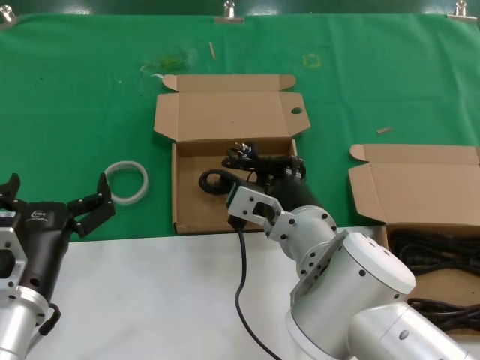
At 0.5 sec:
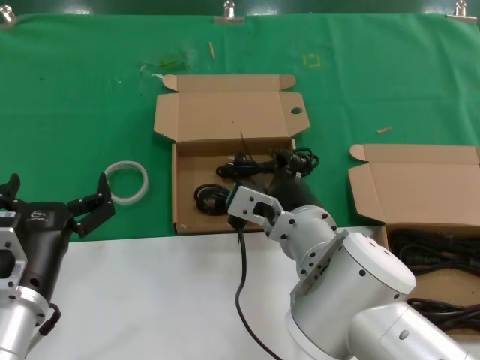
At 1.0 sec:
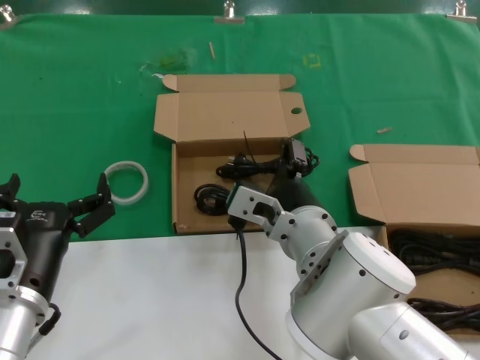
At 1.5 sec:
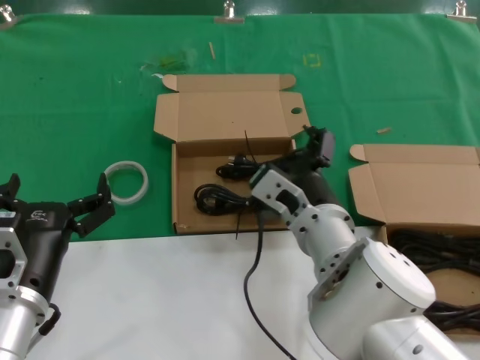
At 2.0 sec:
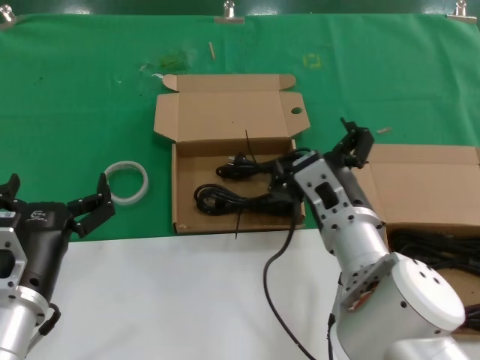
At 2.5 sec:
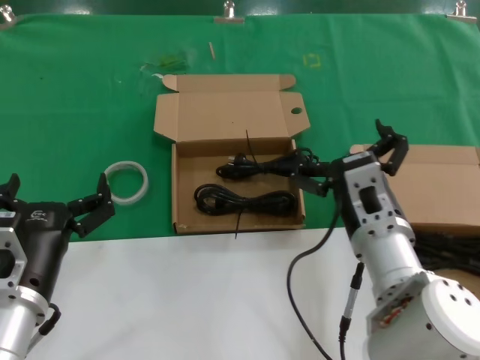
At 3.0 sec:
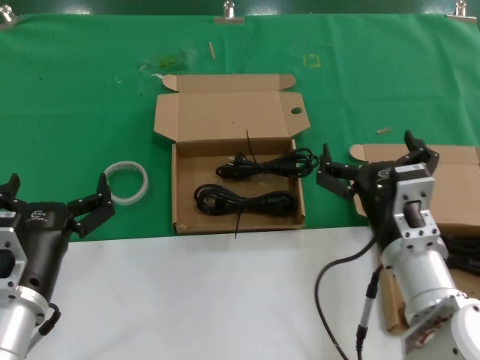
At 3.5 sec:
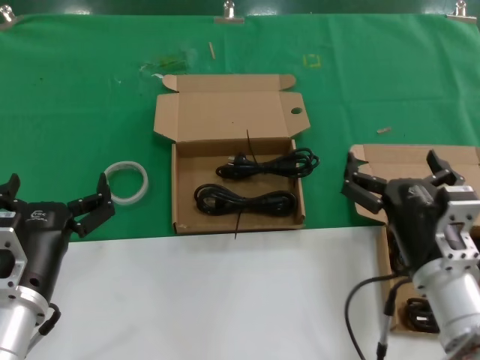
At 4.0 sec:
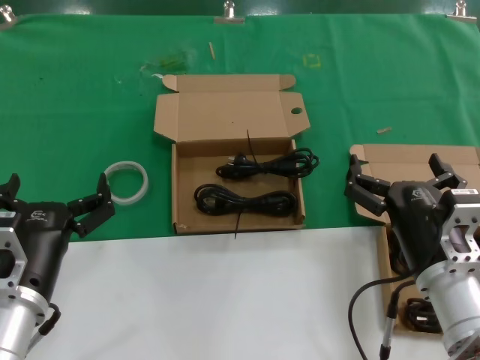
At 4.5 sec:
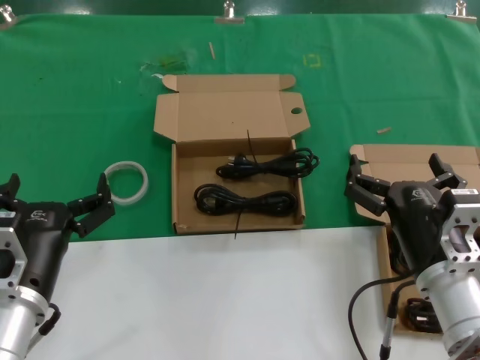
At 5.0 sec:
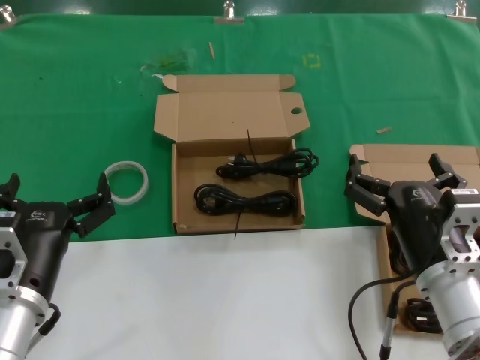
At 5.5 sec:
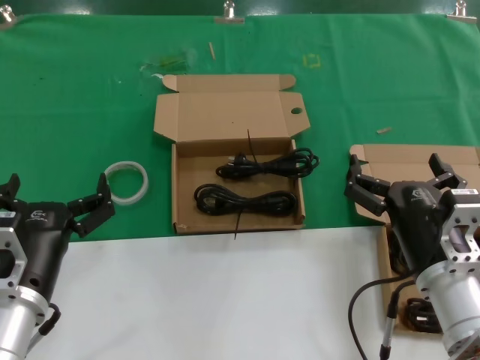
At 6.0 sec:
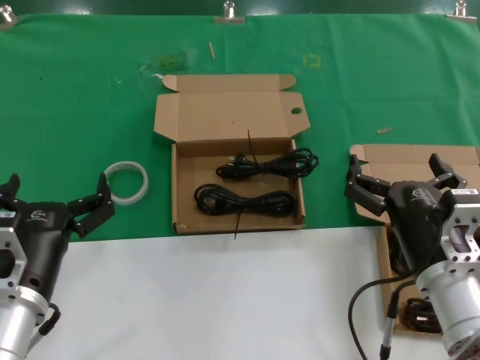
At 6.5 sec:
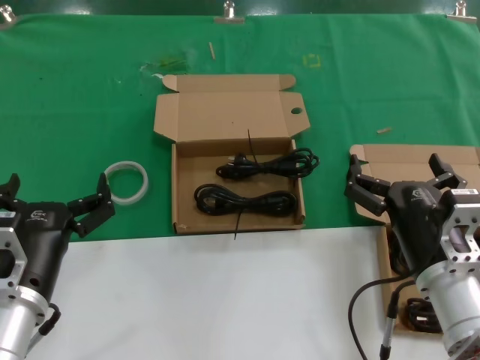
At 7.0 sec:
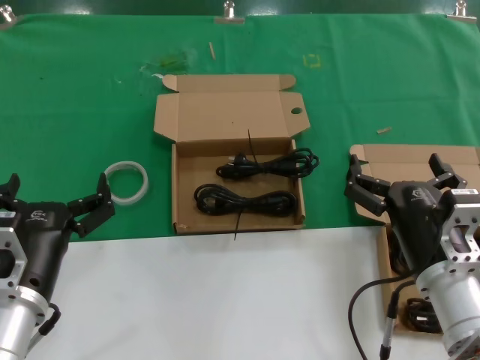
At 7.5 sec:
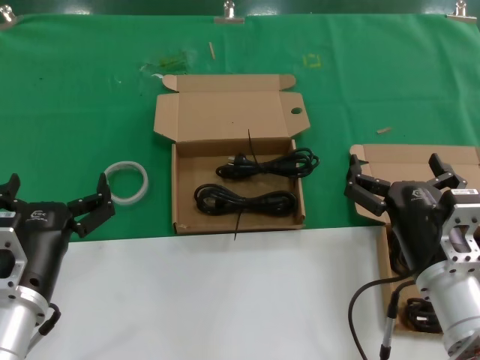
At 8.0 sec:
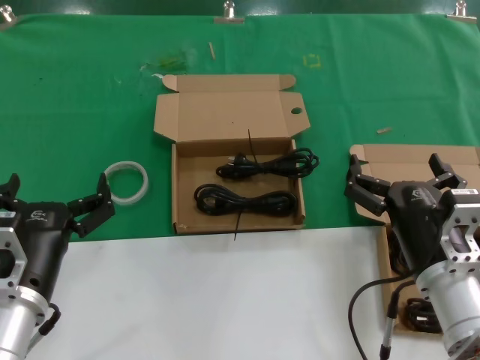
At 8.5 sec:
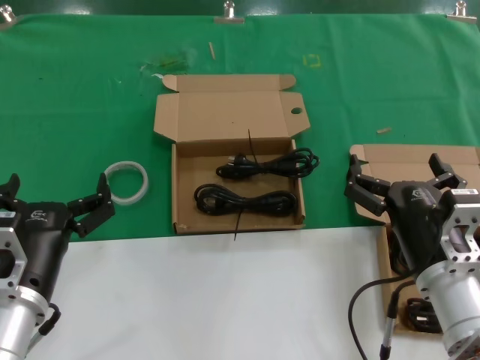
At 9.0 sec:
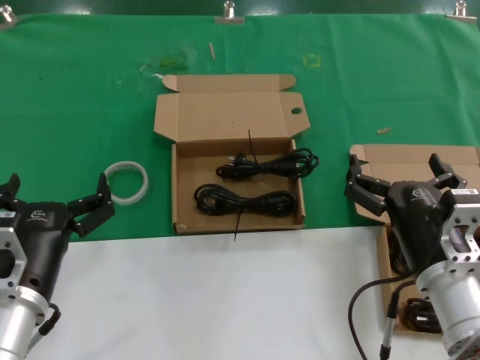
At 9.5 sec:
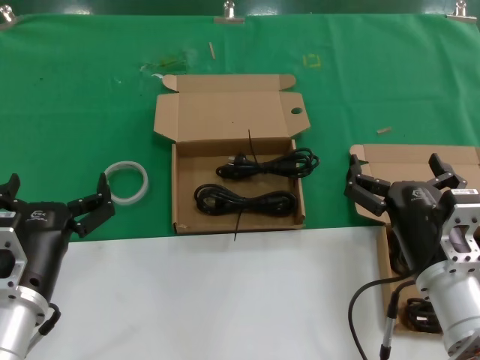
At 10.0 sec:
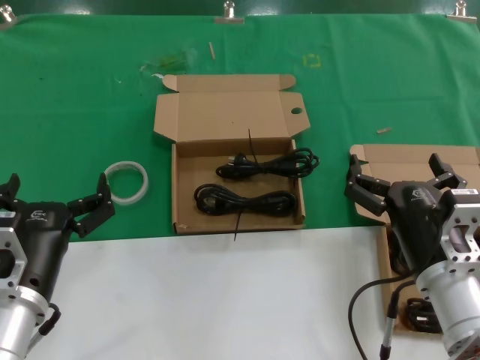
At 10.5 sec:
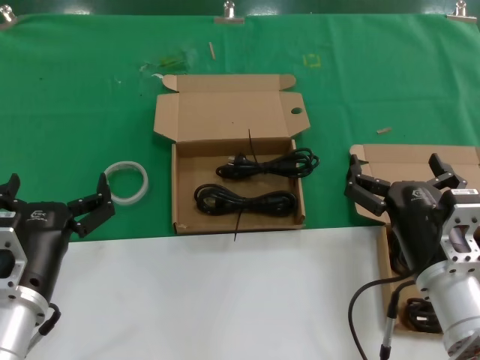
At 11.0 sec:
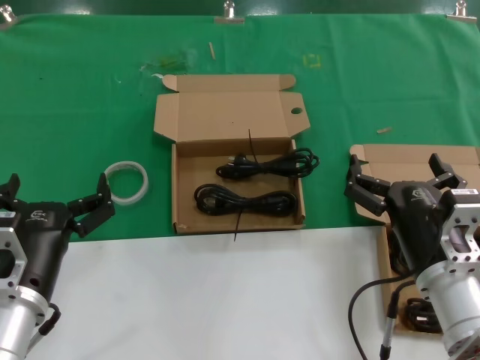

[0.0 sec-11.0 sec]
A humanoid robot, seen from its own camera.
Task of the whole recording: take the parts from the box containing them and put them into an empty box.
2.0 sec to 3.5 sec: The right hand shifts some 10 cm to the right and backward.
3.5 sec to 11.0 sec: Both hands stay about where they are.

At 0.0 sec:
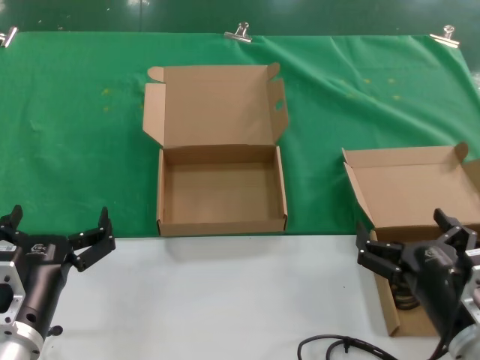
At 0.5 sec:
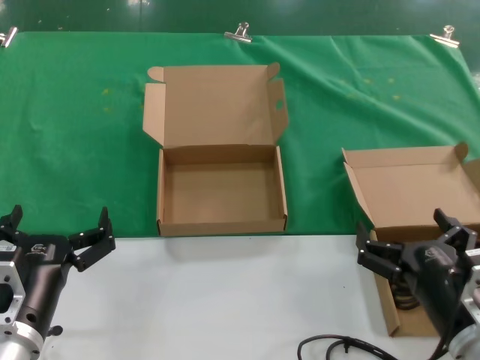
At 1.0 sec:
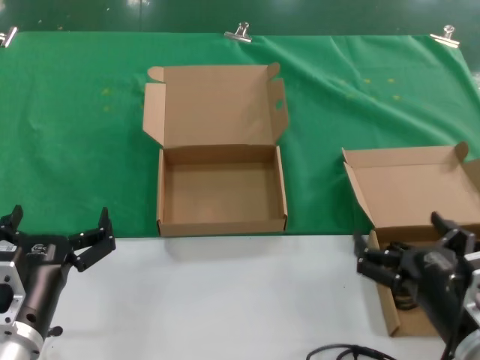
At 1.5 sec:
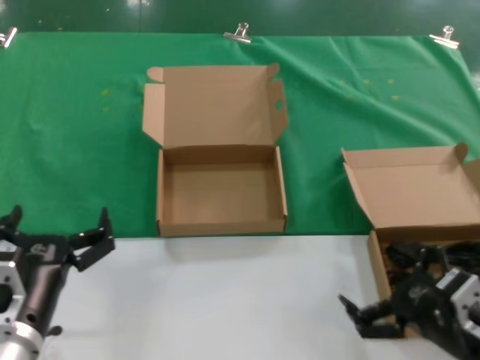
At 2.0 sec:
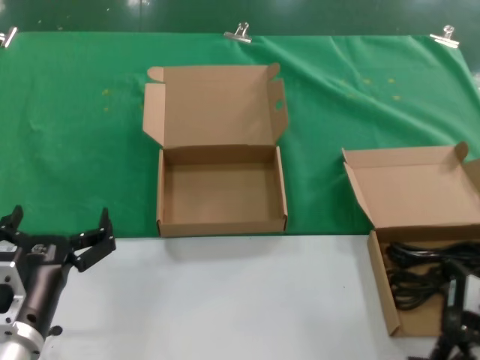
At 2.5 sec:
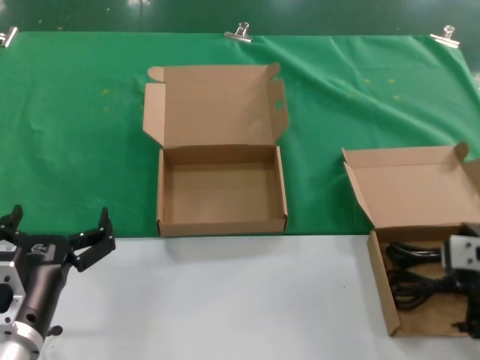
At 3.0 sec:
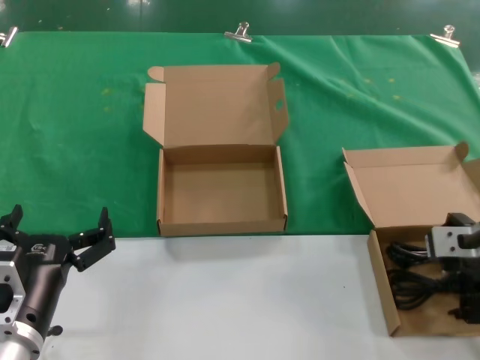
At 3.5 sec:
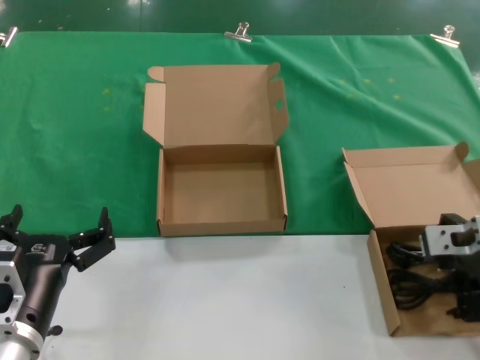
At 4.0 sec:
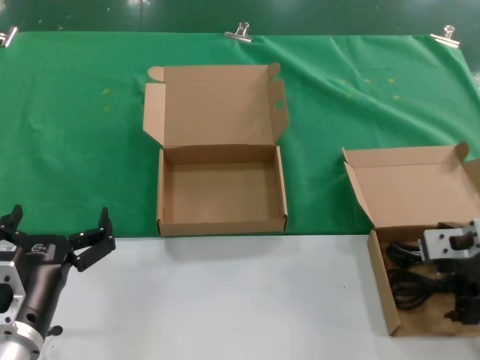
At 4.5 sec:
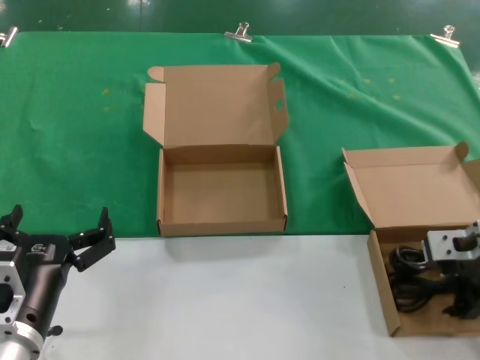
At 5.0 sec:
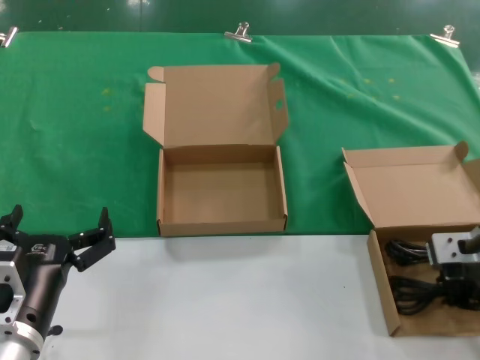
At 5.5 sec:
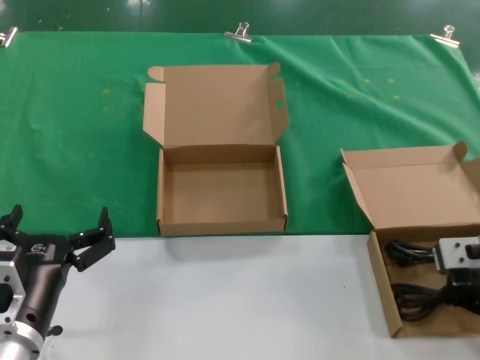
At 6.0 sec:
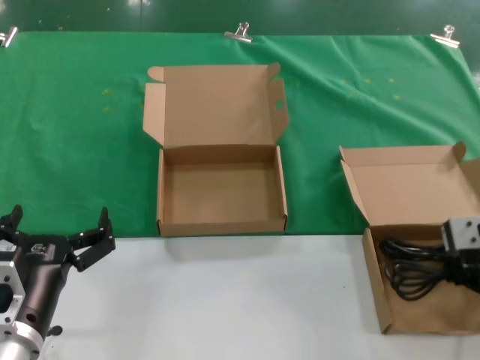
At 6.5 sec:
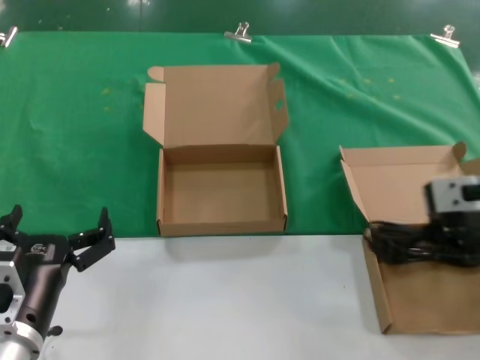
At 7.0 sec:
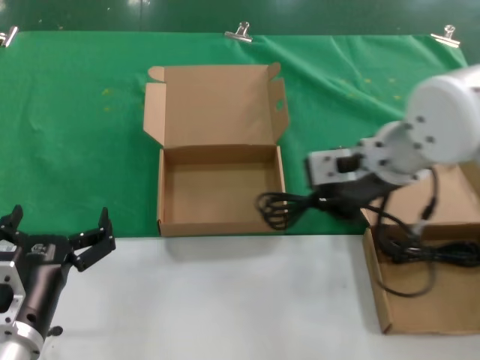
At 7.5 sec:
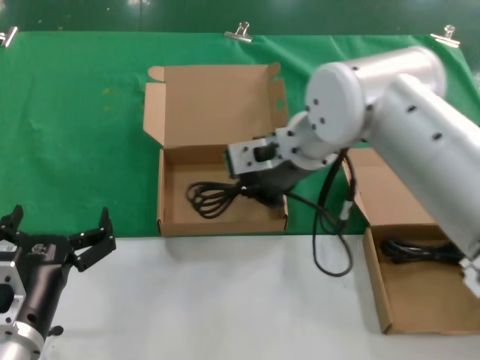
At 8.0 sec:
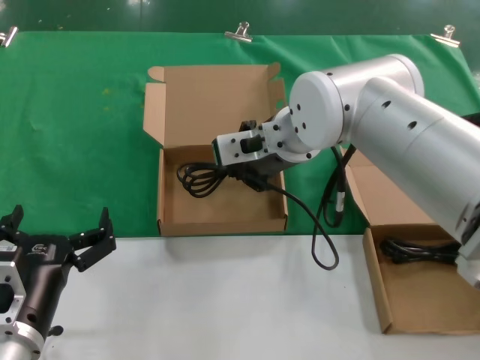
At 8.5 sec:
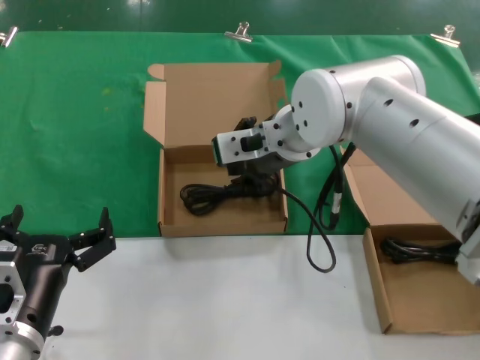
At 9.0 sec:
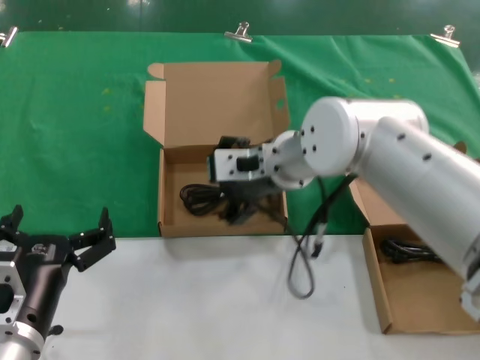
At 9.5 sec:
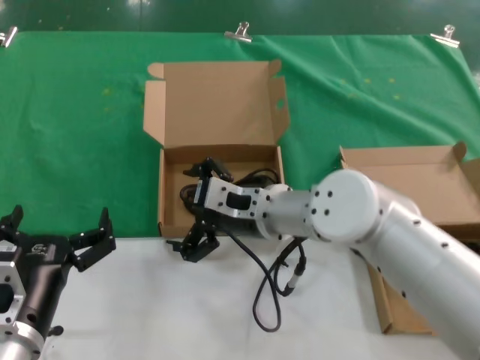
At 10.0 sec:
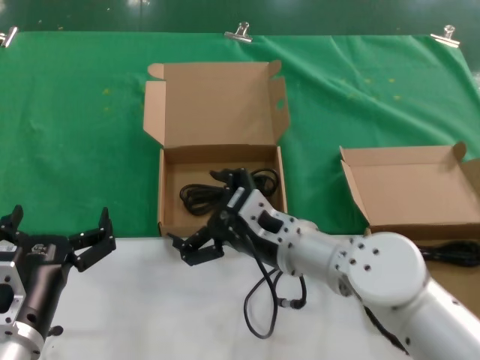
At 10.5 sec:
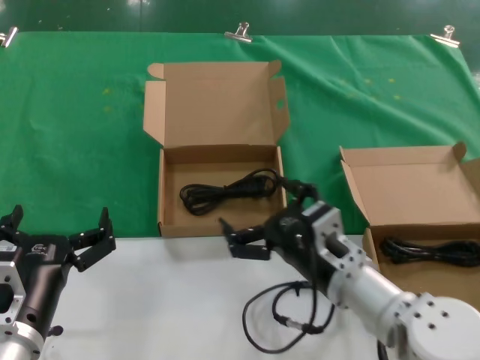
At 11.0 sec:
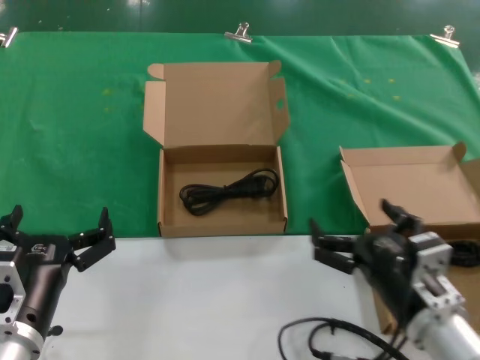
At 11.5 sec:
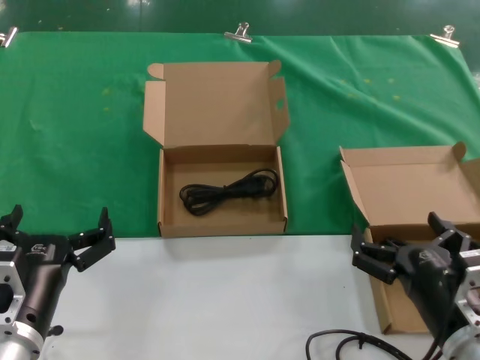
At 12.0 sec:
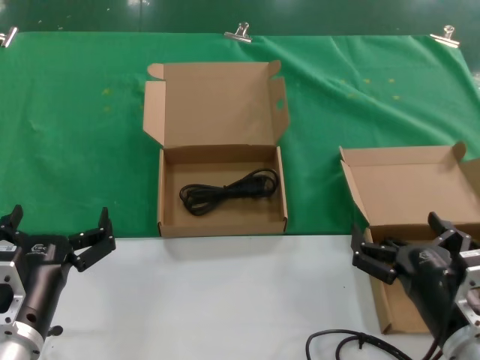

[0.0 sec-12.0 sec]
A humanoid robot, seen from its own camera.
Task of the whole recording: take the parts from the box containing them and put them into an empty box.
Step, 0.0 sec to 5.0 sec: Grasp the data cable.
Step, 5.5 sec to 8.0 sec: Place the data cable in the another box.
0.0 sec to 2.0 sec: The right hand moves upward and to the right, about 10 cm.
2.0 sec to 4.0 sec: The right hand moves forward, about 15 cm.
4.0 sec to 6.0 sec: The right hand is displaced upward by approximately 5 cm.
6.0 sec to 8.0 sec: The right hand travels to the left and forward by approximately 30 cm.
8.0 sec to 10.0 sec: The right hand heads downward and backward, covering some 15 cm.
10.0 sec to 12.0 sec: The right hand shifts approximately 20 cm to the right and backward.

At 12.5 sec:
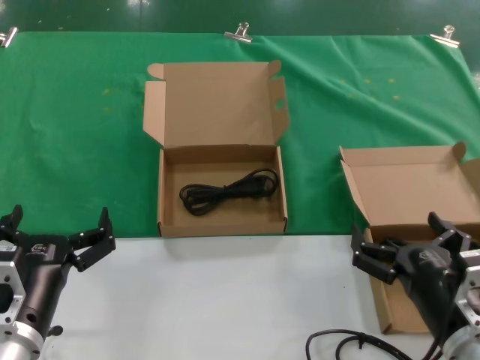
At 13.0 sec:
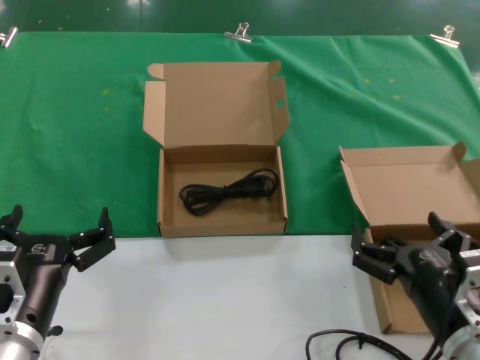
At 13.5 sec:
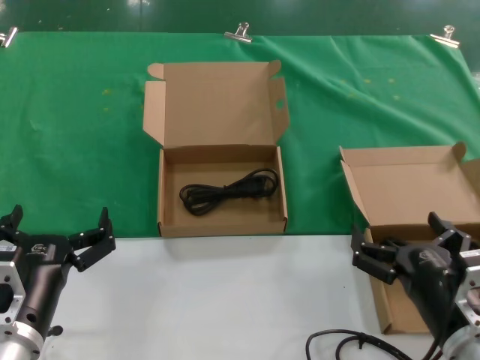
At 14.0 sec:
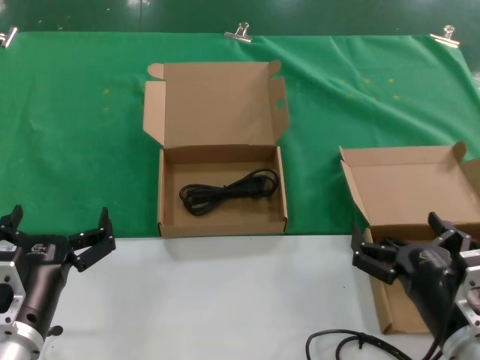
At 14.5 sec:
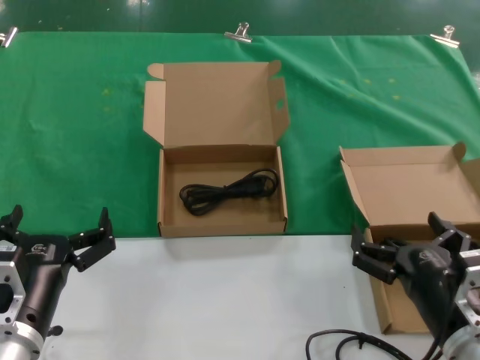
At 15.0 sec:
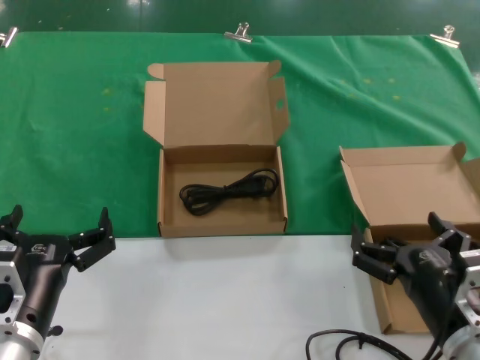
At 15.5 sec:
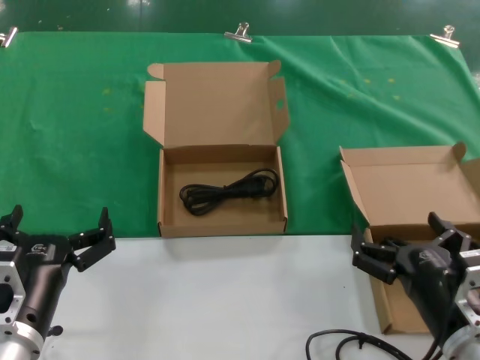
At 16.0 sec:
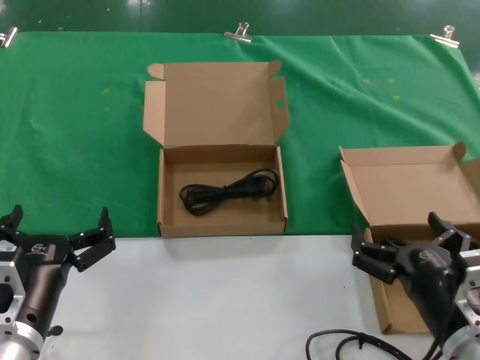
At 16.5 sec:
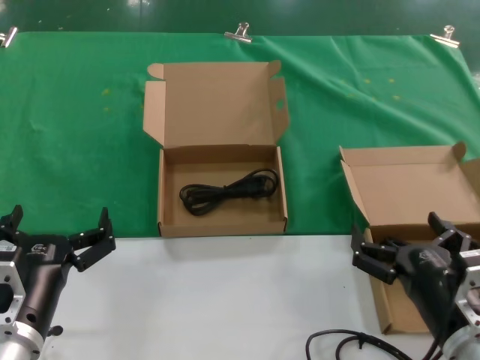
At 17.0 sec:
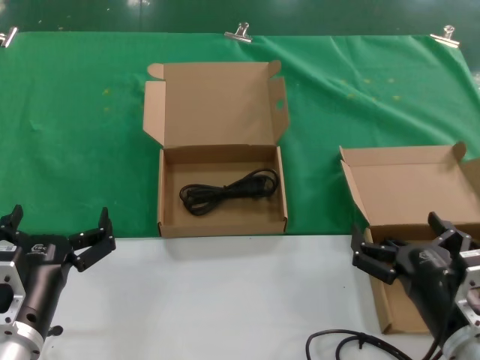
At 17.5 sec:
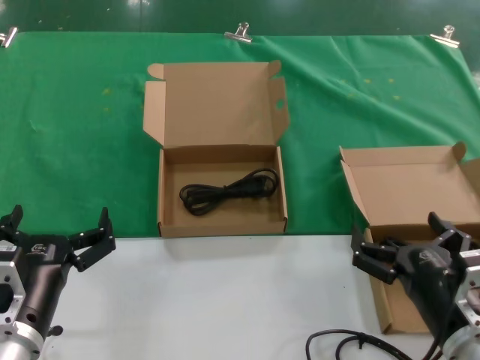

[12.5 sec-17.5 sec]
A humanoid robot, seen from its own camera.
Task of the whole recording: take the parts from the box containing them and put them into an empty box.
12.5 sec to 17.5 sec: The two hands keep their place.
